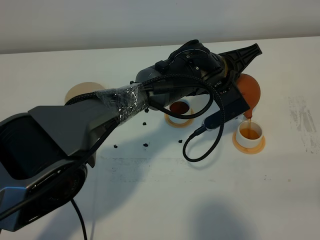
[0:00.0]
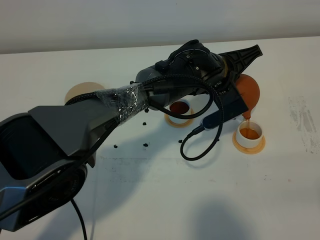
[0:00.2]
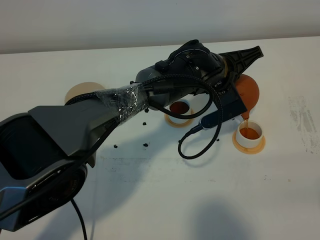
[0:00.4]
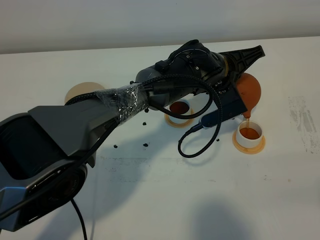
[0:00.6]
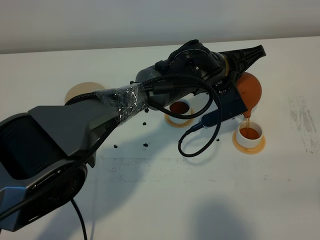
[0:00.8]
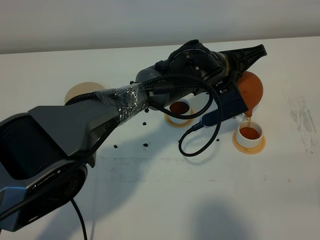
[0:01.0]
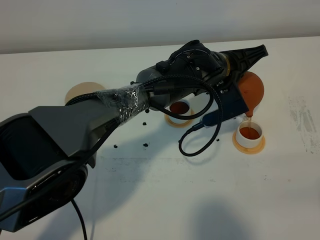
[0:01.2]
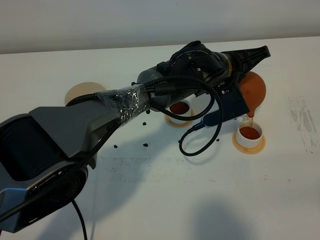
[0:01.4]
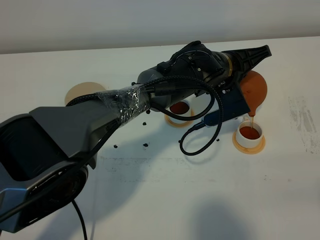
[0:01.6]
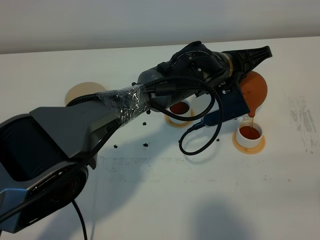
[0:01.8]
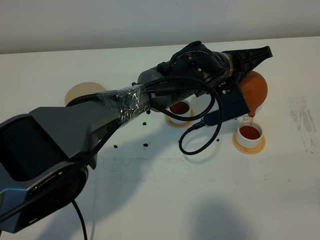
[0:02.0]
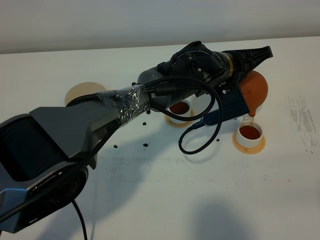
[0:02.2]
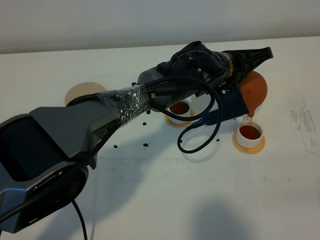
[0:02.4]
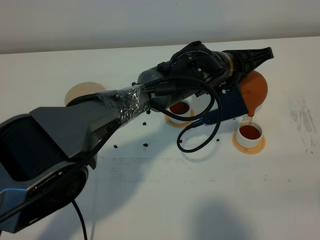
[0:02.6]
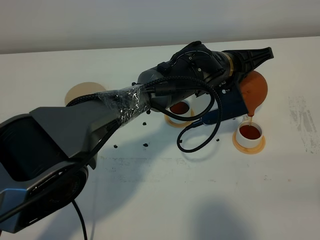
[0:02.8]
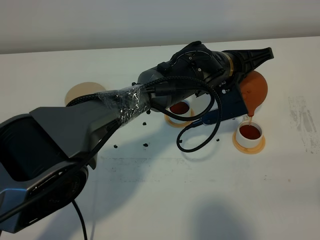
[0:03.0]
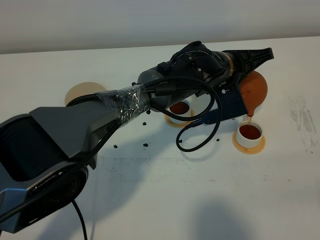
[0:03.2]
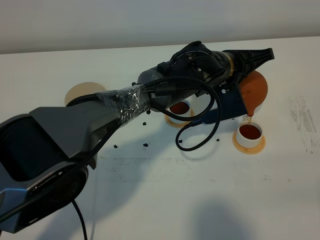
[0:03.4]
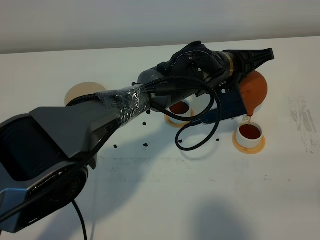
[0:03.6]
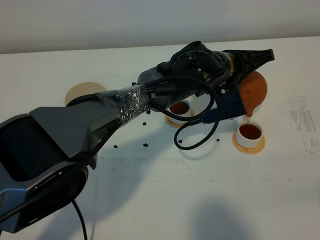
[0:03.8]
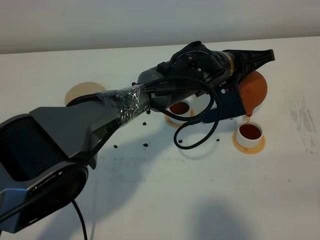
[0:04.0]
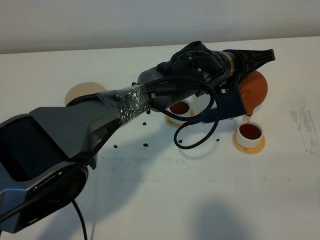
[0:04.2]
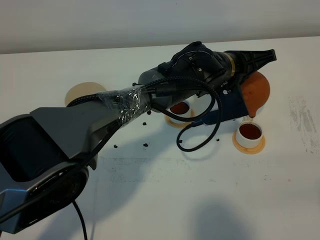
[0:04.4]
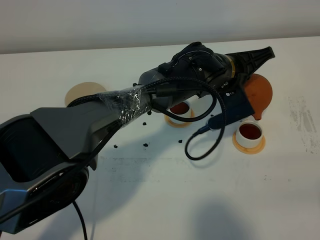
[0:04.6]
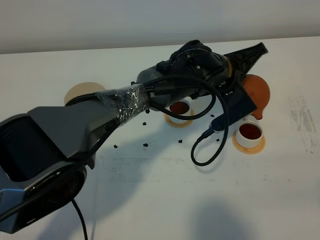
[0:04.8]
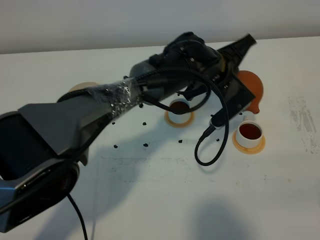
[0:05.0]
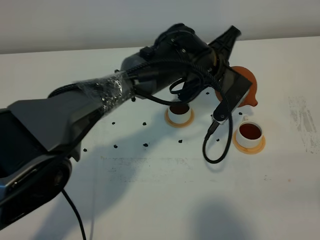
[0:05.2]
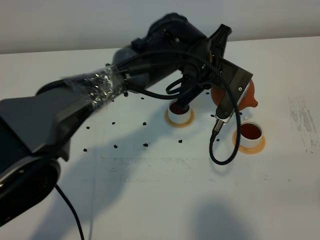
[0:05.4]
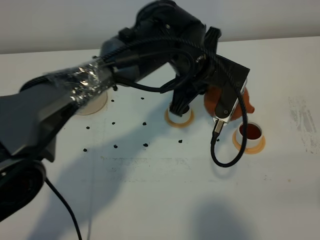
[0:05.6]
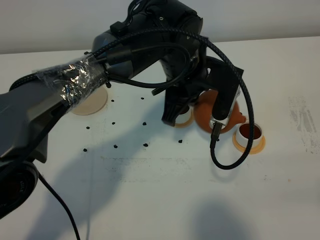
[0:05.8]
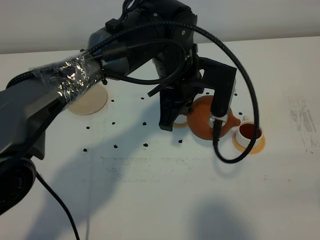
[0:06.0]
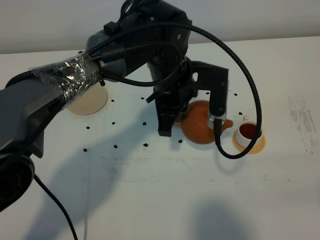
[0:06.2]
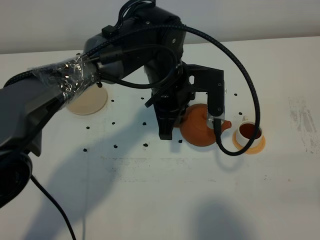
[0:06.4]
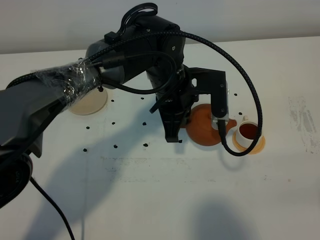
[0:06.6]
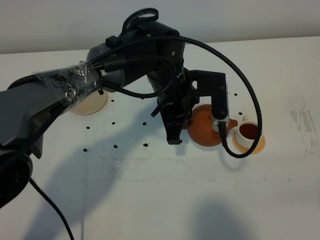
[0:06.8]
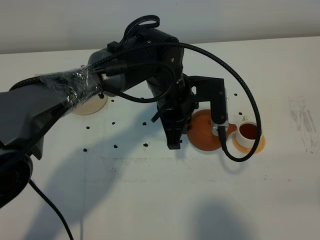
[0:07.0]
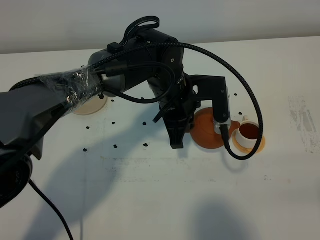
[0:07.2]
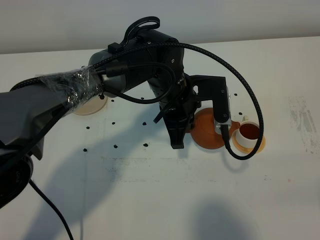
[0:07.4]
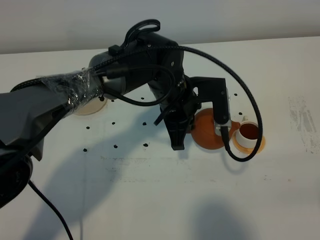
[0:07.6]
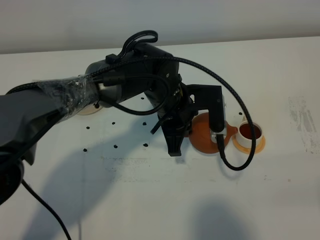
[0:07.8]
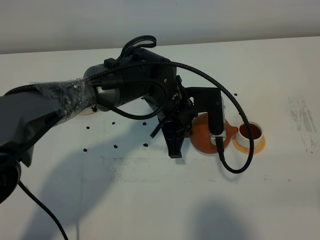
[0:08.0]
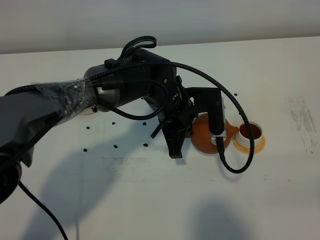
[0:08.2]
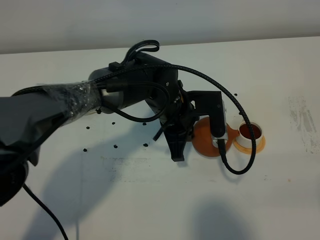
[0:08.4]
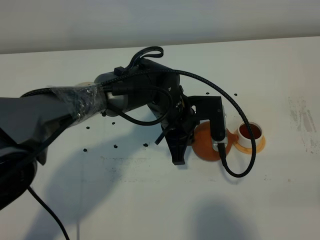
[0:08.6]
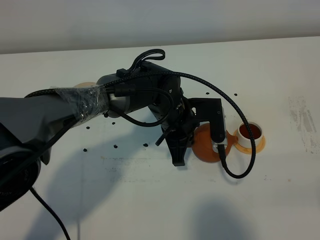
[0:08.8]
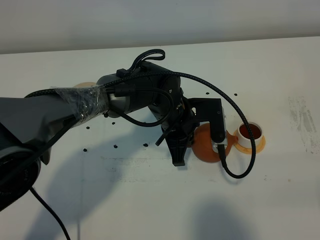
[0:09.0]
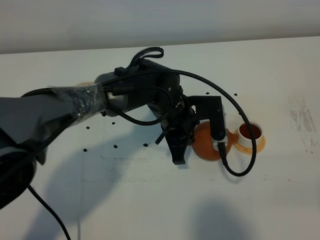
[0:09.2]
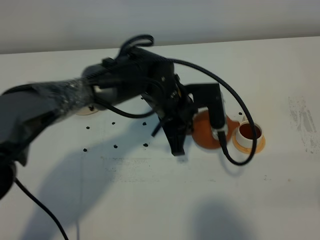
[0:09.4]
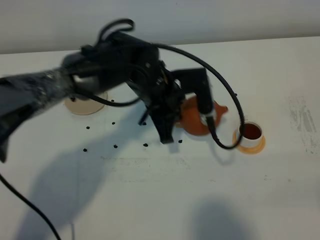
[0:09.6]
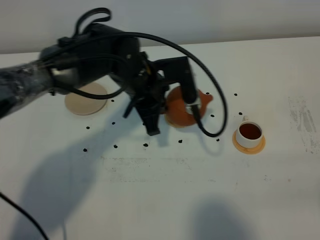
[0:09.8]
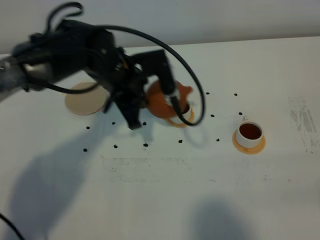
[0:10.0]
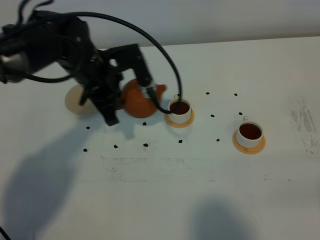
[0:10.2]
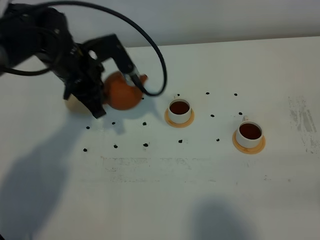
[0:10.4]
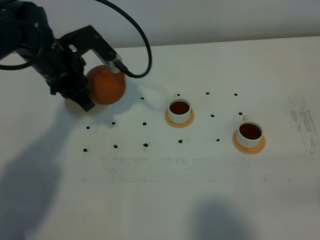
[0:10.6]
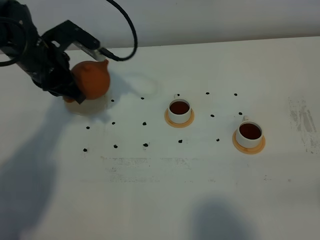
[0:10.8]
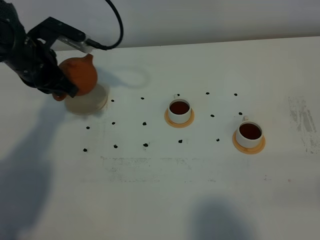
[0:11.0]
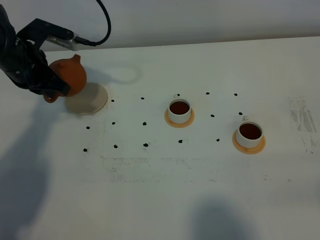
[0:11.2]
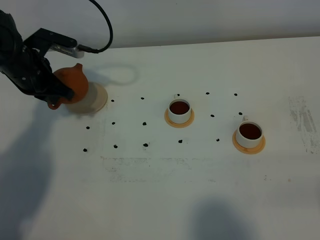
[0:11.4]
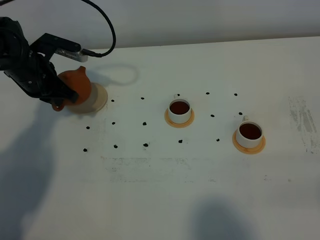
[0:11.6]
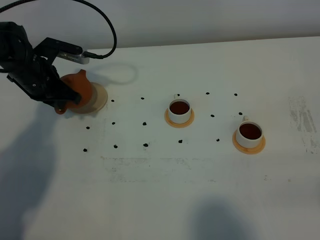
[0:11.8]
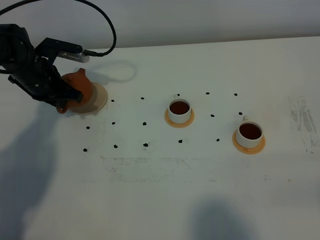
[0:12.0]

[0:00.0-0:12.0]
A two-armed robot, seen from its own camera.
Task of the whole recording: grasp the brown teapot and pour the tea into the two white teacups one by one, put the brown teapot back in its original place.
Step, 0:00.0 to 0:05.2: Pour tea into the teacup with the left gripper.
0:00.0 to 0:01.6: The grippers make only small movements.
0:01.6 to 0:03.0: Neither gripper changes place.
0:03.0 to 0:04.4: Both grippers stay put.
0:04.4 to 0:06.0: The left gripper goes about 10 cm to the left.
0:06.0 to 0:07.6: The left gripper heads downward, covering approximately 5 cm.
0:07.6 to 0:09.0: There are only small adjustments of the grippers.
0:09.0 to 0:10.4: The left gripper heads to the left and upward, covering some 20 cm.
0:10.4 to 0:12.0: The left gripper goes roughly 10 cm to the left and downward.

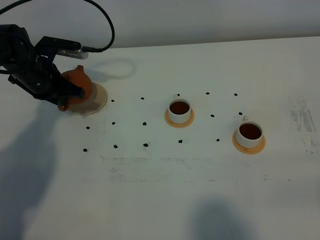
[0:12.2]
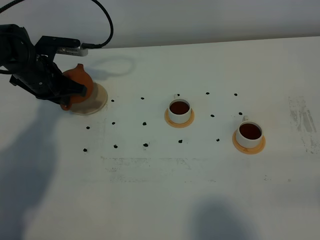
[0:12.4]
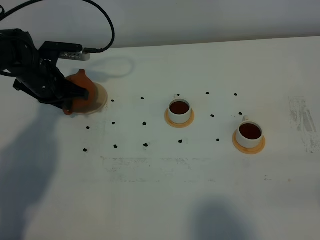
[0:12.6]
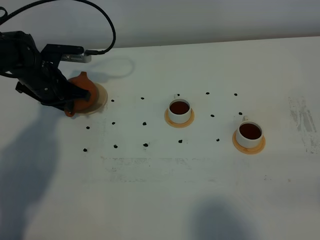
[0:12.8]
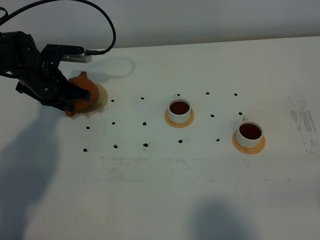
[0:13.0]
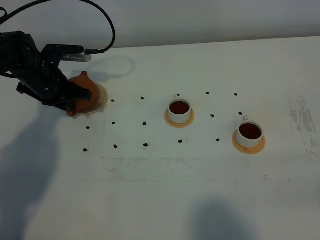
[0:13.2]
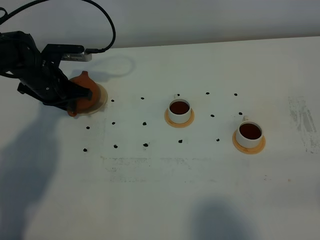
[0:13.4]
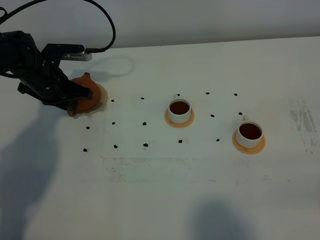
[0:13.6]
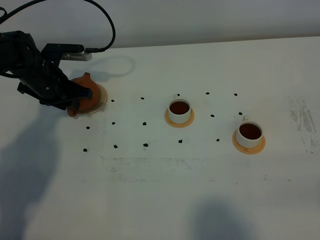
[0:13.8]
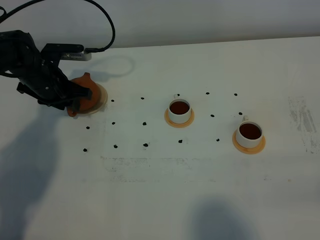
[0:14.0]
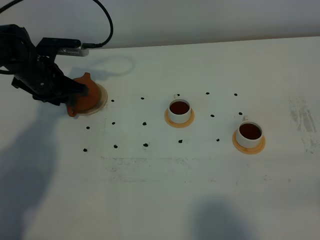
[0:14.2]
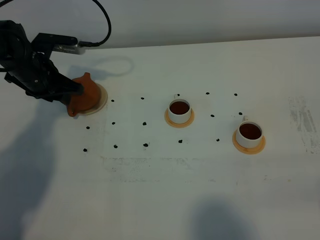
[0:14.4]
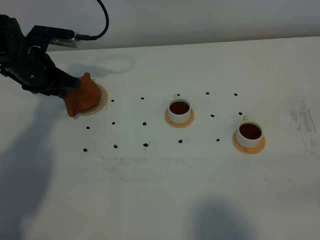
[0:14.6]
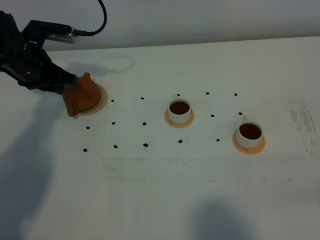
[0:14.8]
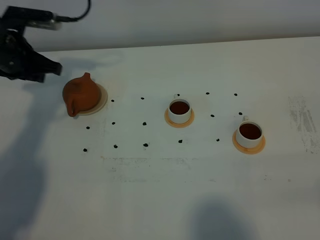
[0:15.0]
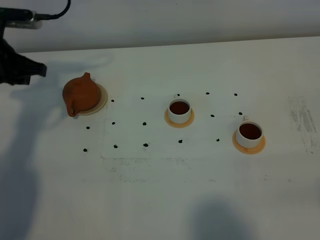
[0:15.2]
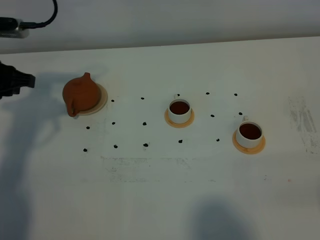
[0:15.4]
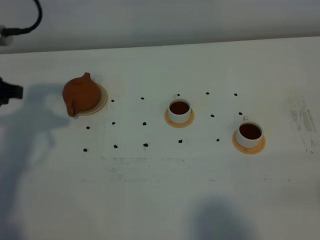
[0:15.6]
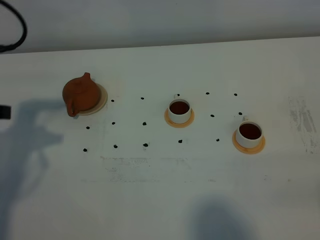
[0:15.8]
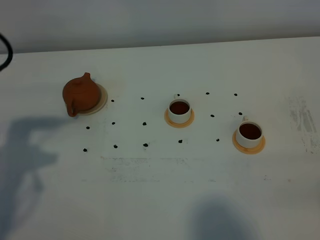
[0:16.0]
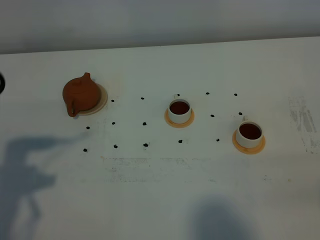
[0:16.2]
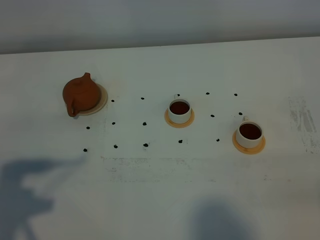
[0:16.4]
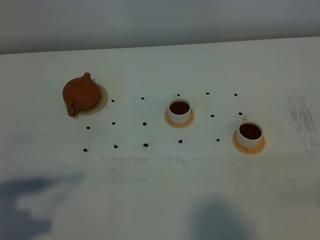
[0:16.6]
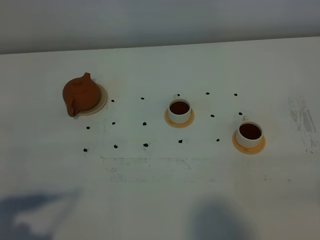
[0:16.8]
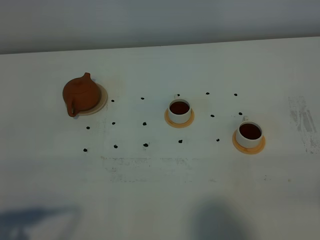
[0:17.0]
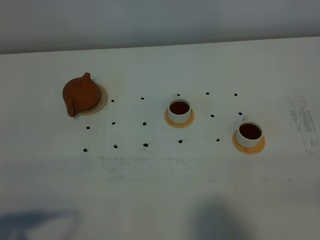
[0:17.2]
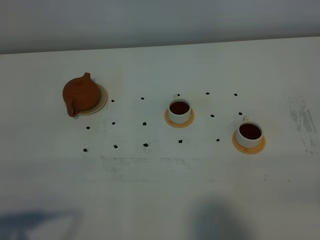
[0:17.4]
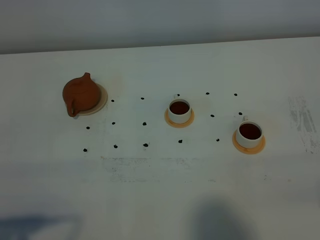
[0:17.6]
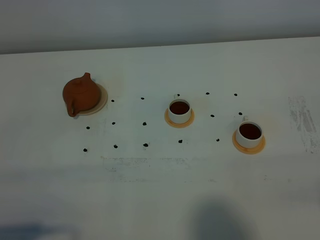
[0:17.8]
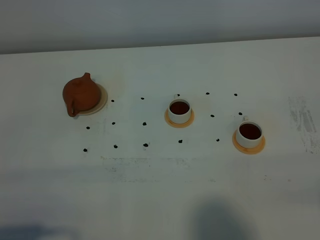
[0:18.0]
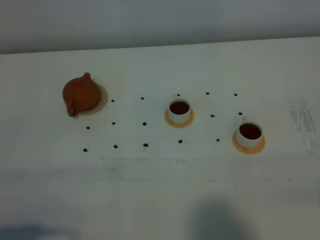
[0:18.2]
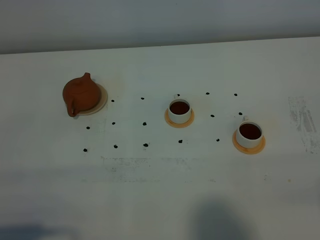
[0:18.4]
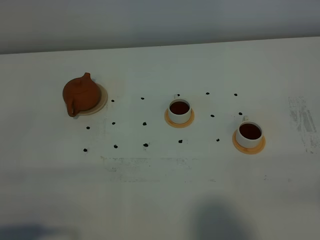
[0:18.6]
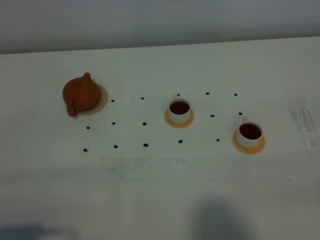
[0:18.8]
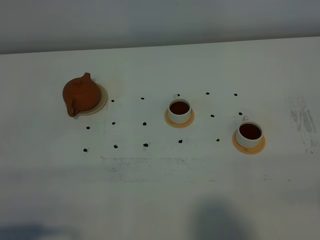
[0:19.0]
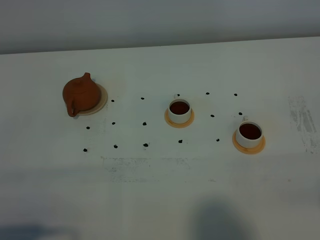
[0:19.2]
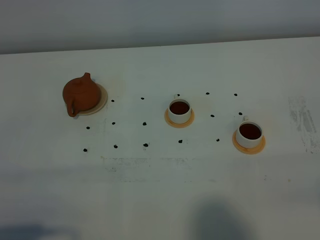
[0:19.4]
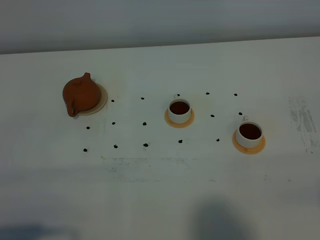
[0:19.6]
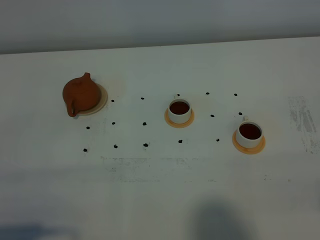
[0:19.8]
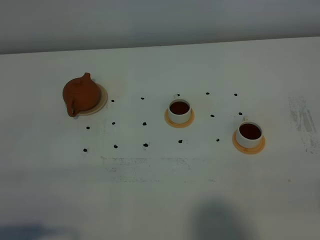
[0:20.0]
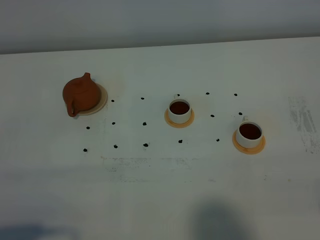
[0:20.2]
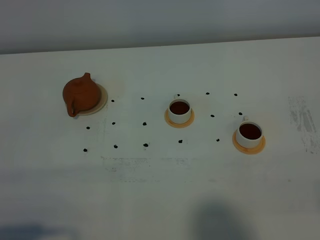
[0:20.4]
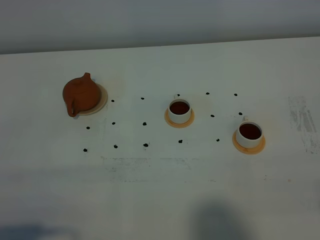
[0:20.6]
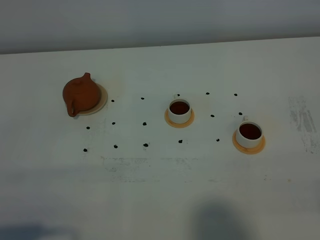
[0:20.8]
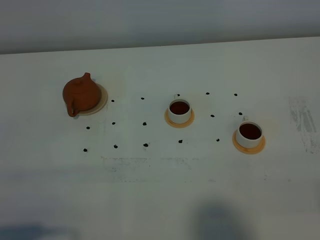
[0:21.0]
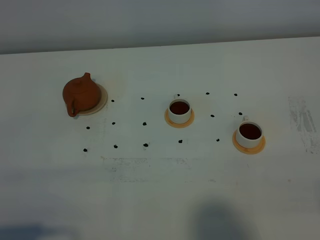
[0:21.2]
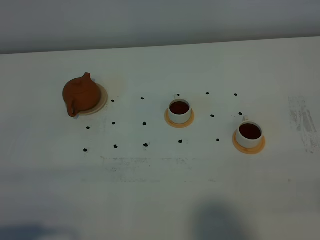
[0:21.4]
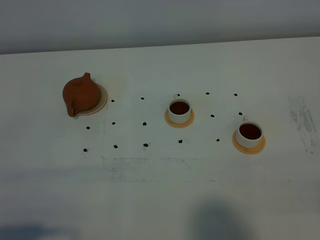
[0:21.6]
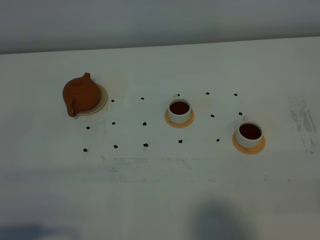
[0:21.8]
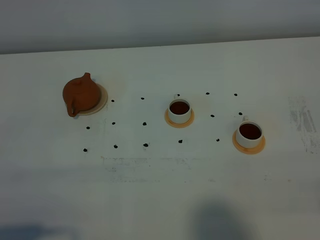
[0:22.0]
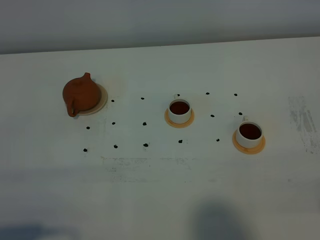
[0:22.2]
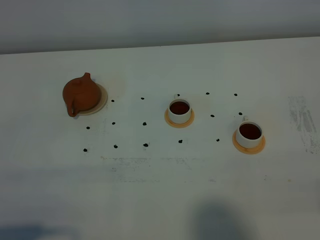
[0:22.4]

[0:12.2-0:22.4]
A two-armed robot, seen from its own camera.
Task of the whole recording: grasp the brown teapot and pour the tea into the two white teacups one by one, put the brown teapot back in its original place.
0:12.2 to 0:13.6: There are only small adjustments of the grippers.
0:13.6 to 0:15.2: The left gripper travels upward and backward by about 10 cm, and opens.
0:15.2 to 0:16.6: The left gripper goes roughly 30 cm backward.
0:16.6 to 0:18.0: The left gripper heads backward, covering some 5 cm.
0:18.0 to 0:19.4: Both grippers stay about where they are.
0:21.0 to 0:22.4: Neither gripper changes place.
